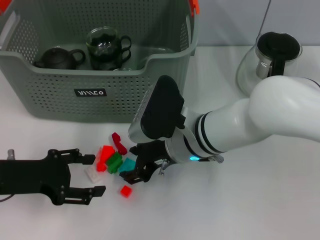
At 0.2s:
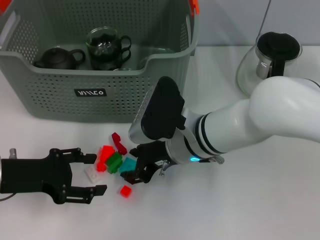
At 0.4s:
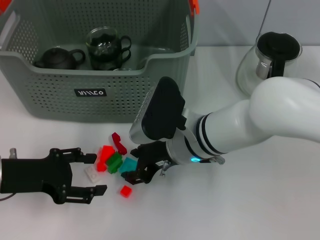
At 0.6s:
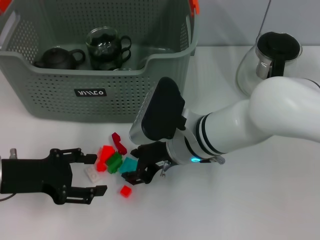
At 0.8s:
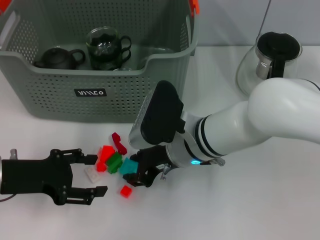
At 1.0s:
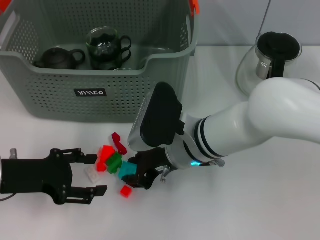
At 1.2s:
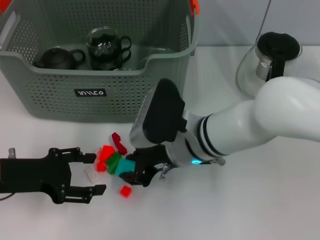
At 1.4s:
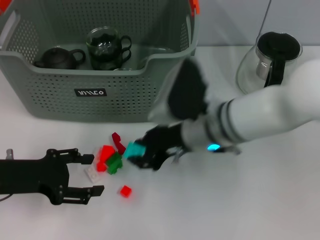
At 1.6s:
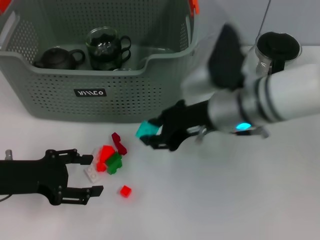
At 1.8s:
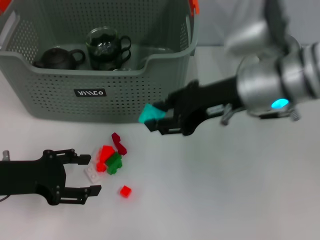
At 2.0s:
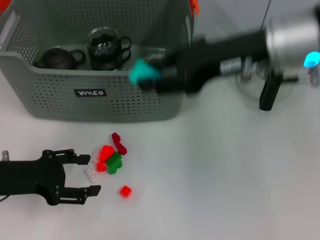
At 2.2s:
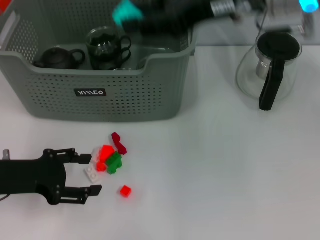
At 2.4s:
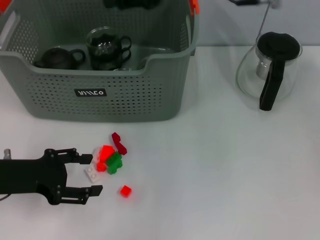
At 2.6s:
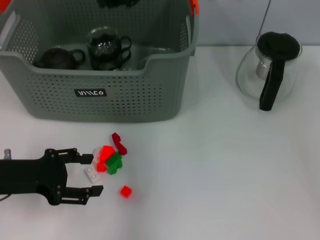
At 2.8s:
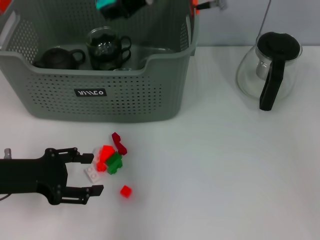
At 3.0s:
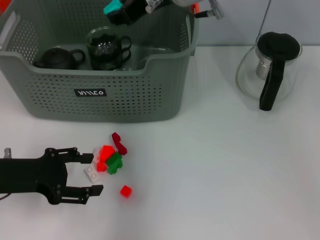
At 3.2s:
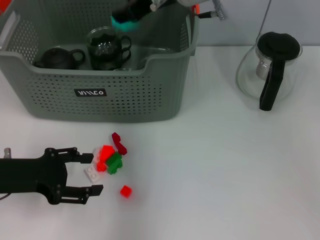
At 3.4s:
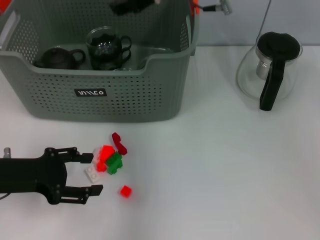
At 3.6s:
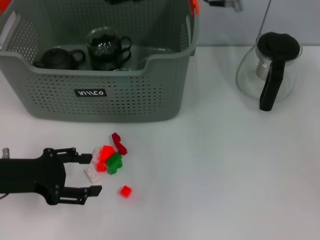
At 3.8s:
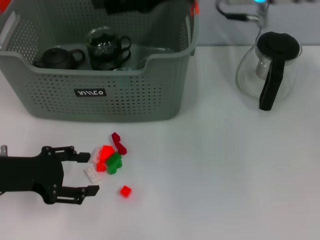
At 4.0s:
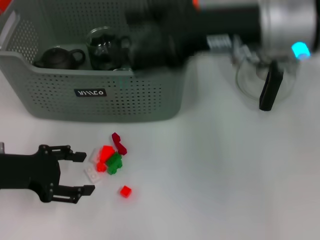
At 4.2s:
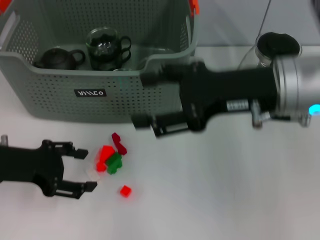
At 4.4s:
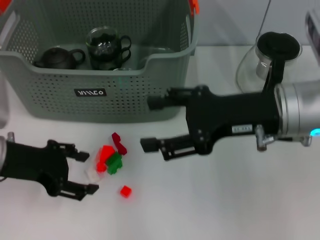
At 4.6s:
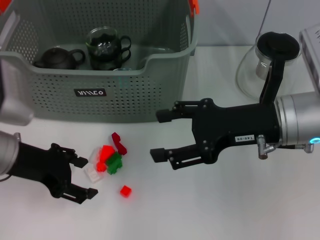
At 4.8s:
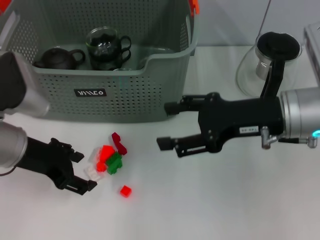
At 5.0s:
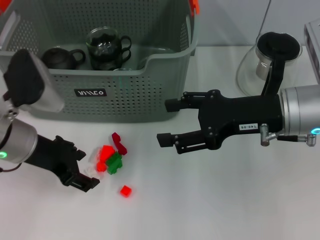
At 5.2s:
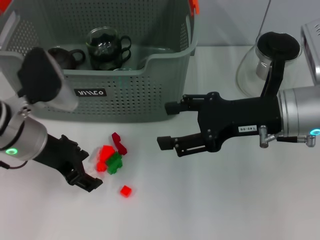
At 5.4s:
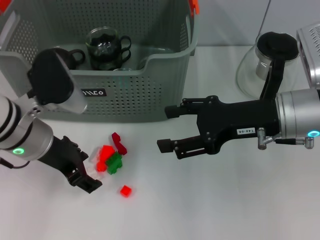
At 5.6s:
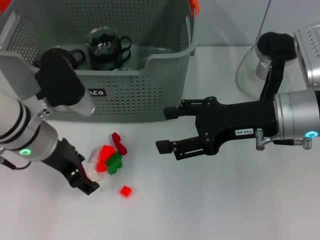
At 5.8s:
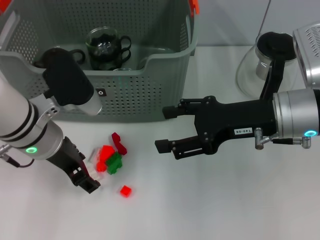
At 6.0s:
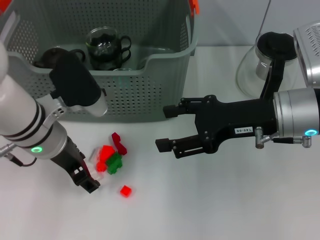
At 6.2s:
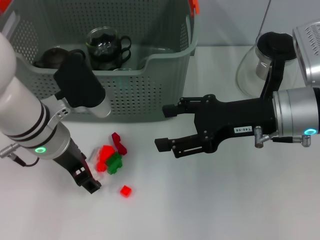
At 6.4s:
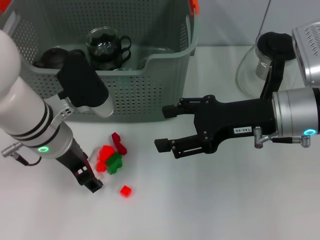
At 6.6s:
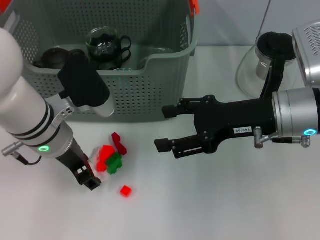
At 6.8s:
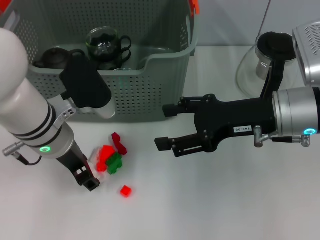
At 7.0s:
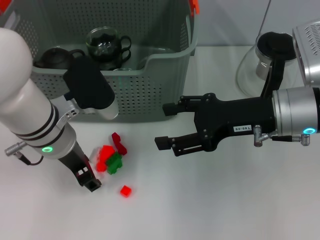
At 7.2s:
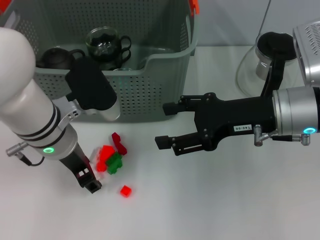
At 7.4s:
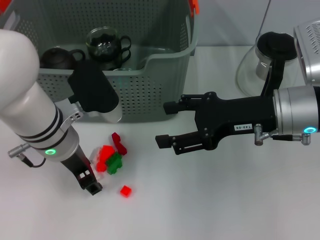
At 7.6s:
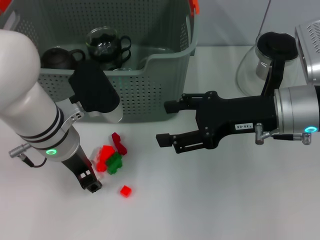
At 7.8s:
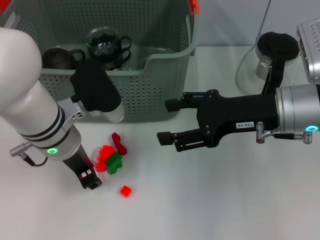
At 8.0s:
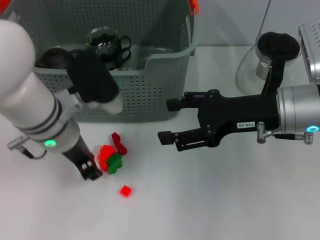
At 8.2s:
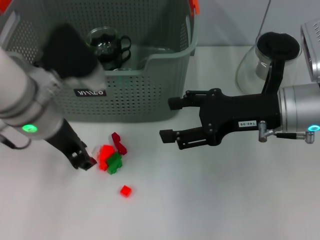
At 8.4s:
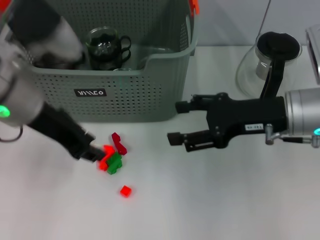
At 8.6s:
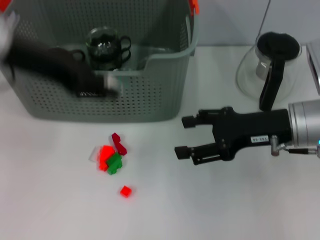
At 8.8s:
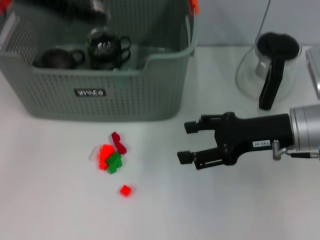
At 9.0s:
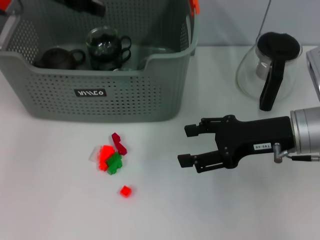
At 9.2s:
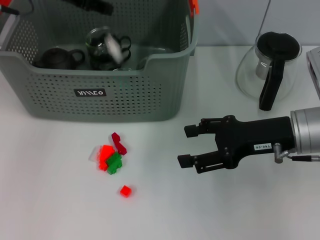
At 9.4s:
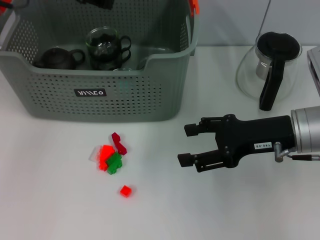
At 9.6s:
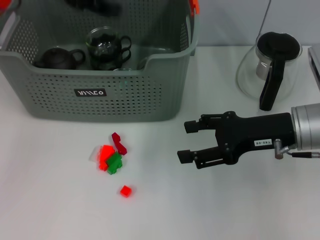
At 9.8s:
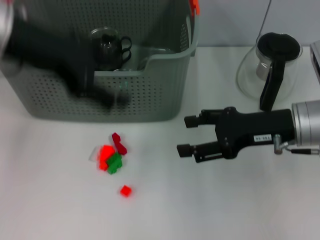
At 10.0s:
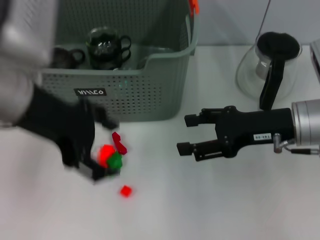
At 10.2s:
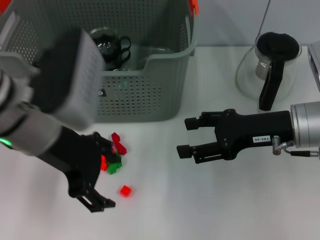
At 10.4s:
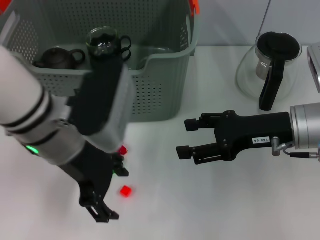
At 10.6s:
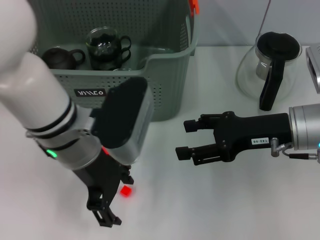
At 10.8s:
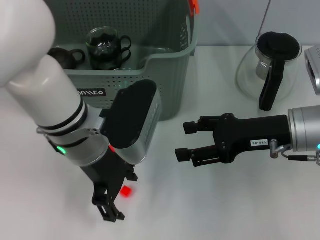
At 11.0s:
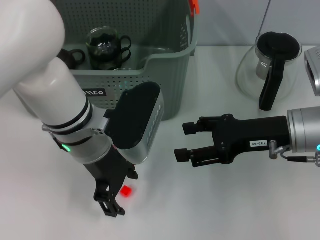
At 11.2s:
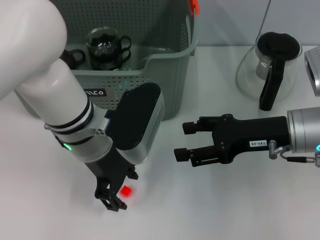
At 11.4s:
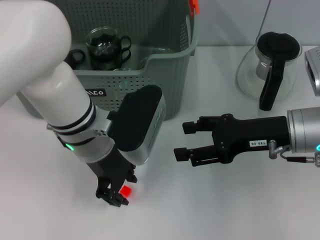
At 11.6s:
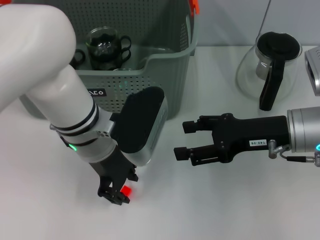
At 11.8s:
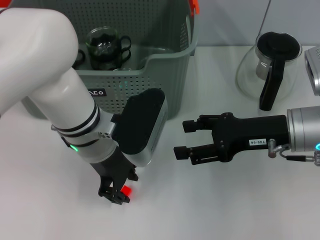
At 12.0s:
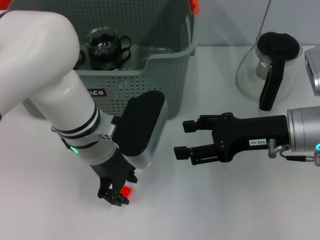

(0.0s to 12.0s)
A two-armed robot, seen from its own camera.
Task of the whole recording: pick up the teacup on the table and place it into the storage bin, pick up the block on the table and place it into the storage bin.
Step, 1.2s - 3.4s: Place the light blue block in the storage box with right gripper.
Step, 3.6s - 7.6s: Grasp the white block with left gripper.
Step, 7.8s - 9.4s: Place the white block in the storage box with left gripper.
0.0s - 1.6s: The right gripper moves upward and to the right, roughly 10 cm, and closes.
1.6s - 3.0s: The right gripper is displaced forward, upward and to the left by approximately 15 cm.
3.0s - 4.4s: The left gripper shifts by roughly 5 cm. The right gripper travels backward, to the right and downward by approximately 20 cm, and opens its fingers.
4.4s - 6.0s: The left gripper is displaced to the right by roughly 10 cm.
6.0s - 7.6s: The grippers stay close to where they were, moving slightly.
7.6s - 9.0s: The left gripper goes roughly 20 cm upward, forward and to the left.
9.0s - 10.4s: The left gripper shifts some 20 cm backward, downward and to the right, and opens up.
10.4s - 12.0s: The left gripper is displaced downward by approximately 5 cm, and closes its fingers.

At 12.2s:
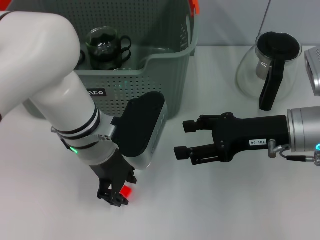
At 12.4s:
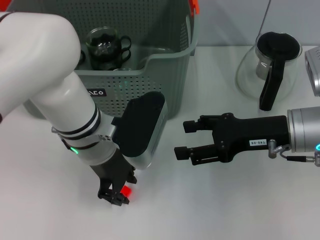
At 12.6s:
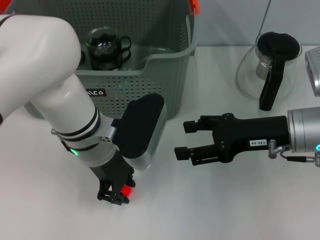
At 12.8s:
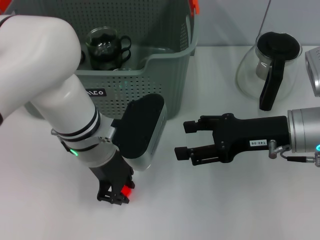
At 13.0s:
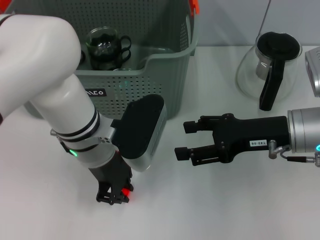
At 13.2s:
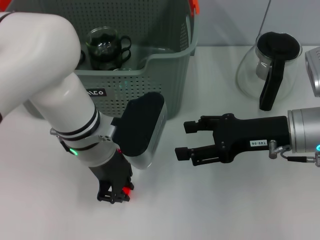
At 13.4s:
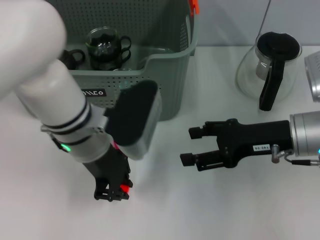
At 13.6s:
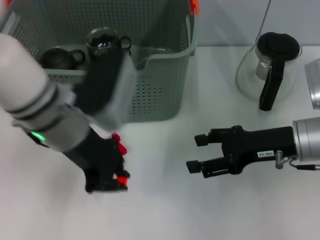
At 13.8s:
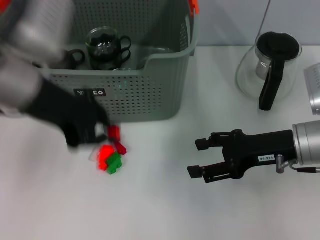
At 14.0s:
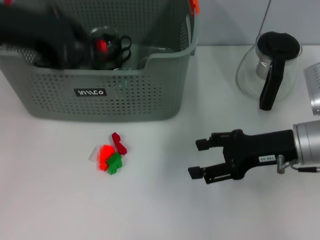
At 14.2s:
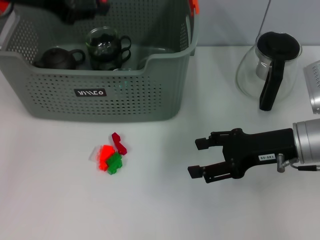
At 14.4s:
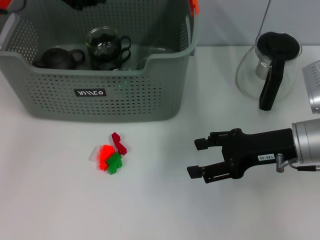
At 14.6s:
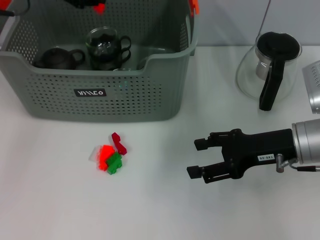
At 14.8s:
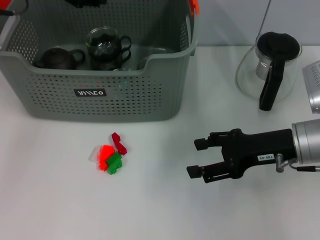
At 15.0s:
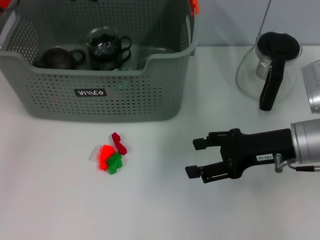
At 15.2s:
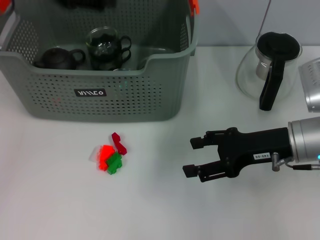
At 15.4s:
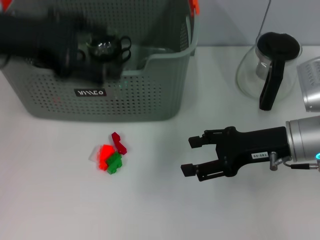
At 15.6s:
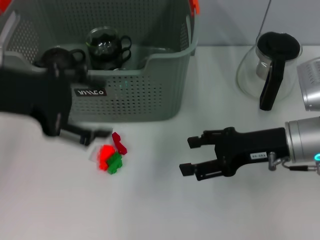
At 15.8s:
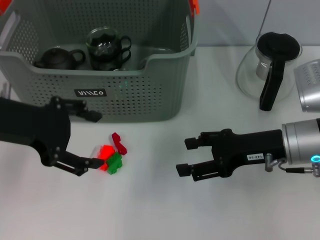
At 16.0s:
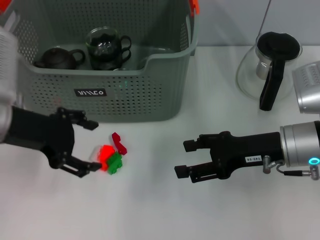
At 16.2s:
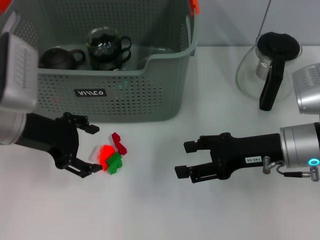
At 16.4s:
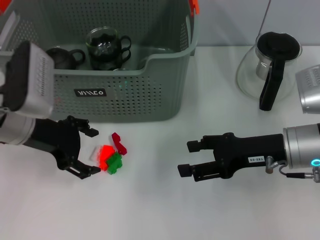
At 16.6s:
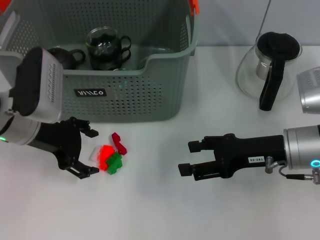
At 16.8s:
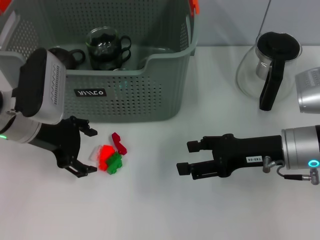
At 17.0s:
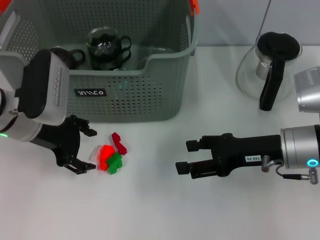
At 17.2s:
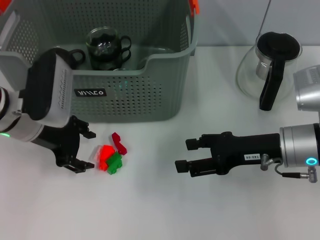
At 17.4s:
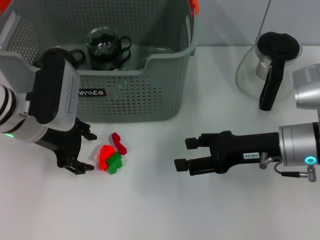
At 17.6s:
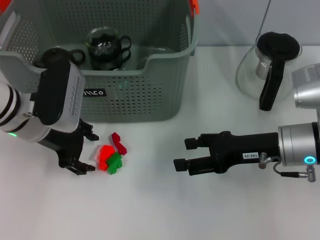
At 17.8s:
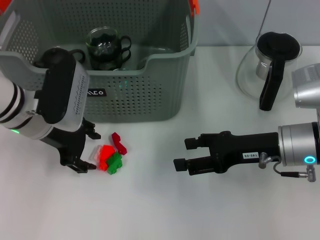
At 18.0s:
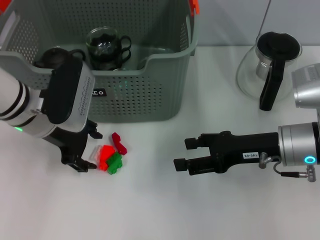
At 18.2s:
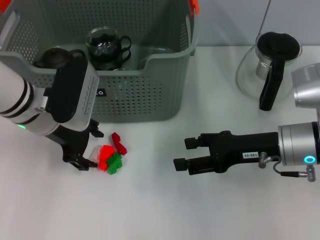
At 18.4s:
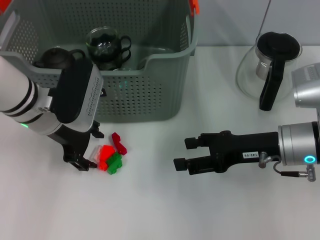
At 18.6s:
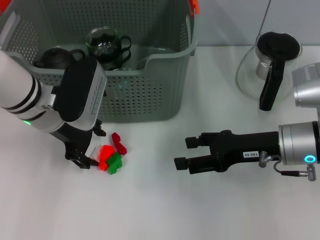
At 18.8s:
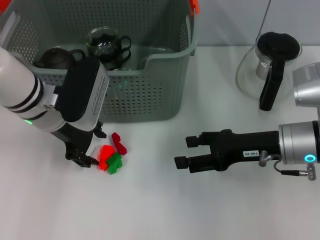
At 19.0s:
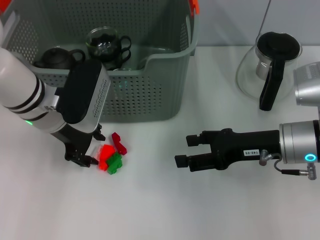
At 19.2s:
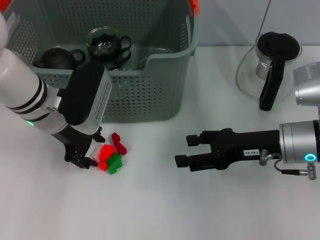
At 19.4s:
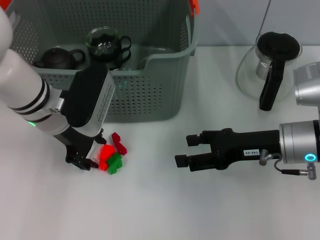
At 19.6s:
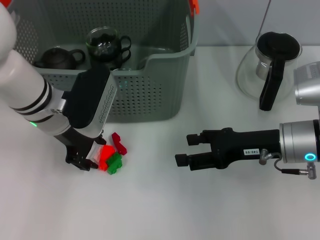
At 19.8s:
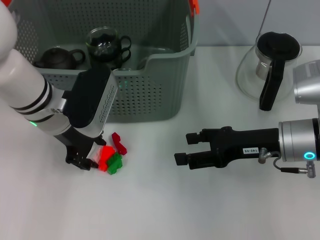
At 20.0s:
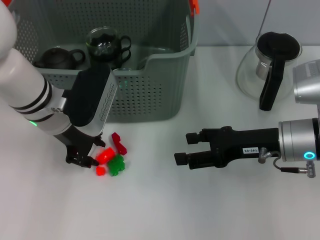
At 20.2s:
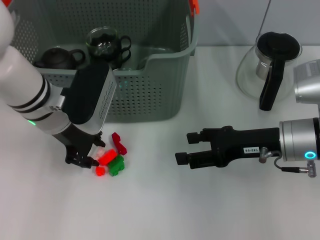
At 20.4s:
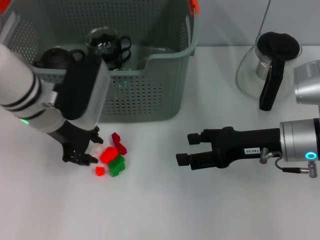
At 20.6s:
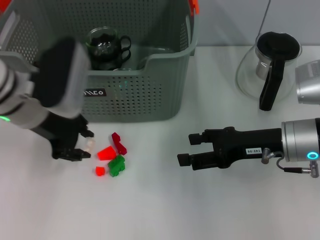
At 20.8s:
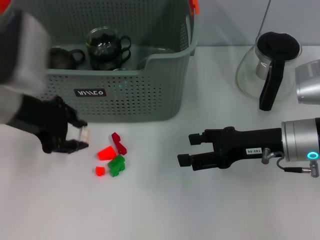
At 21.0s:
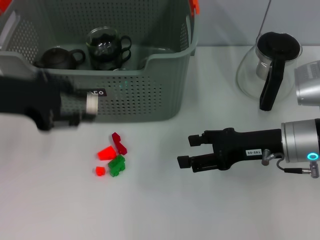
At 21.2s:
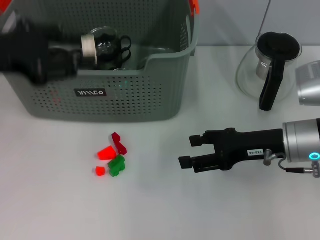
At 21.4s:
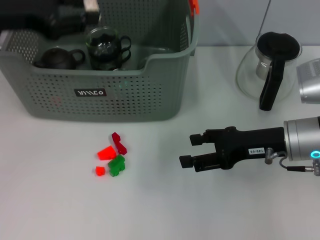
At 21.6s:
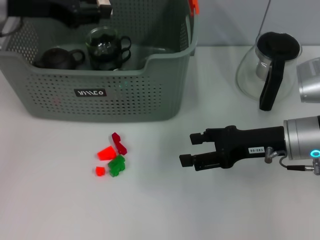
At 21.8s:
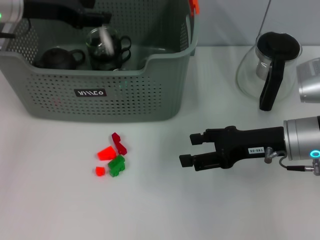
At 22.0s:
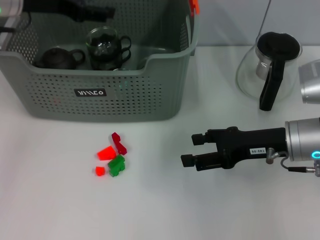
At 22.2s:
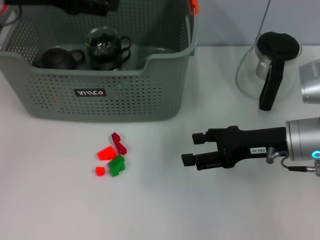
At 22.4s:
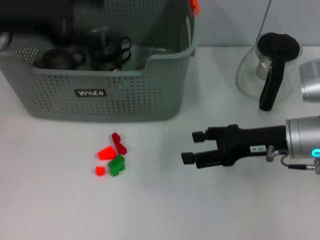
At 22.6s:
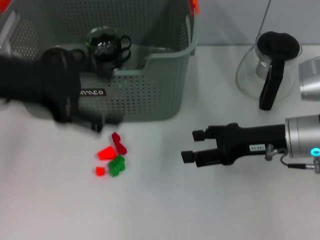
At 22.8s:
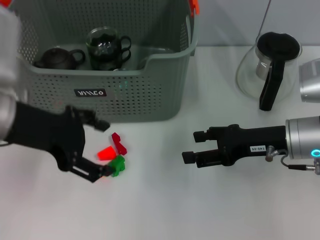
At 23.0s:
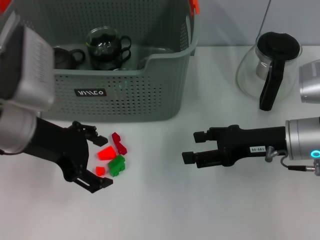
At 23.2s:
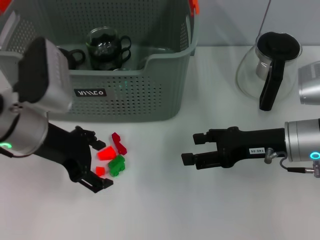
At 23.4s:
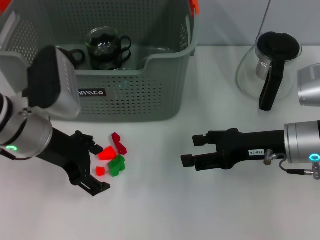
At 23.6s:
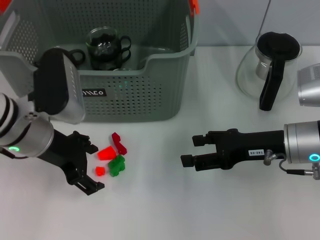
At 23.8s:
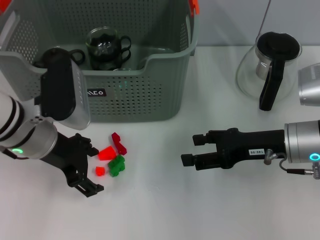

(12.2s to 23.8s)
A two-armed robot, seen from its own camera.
Task of the whole recording: pick up the teacup on the table and place it into the storage bin, pick up the block on the table and place it into the storage bin.
Step, 13.2s - 14.8s: Place the orange block in the storage box with left gripper.
Step, 15.2s - 20.2s: Grasp the white block with left gripper.
Step, 20.4s - 22.0s: Place the white block in the storage box with left gripper.
12.2s - 13.6s: The left gripper travels upward by approximately 5 cm.
13.6s - 15.0s: The left gripper shifts about 20 cm forward, to the left and upward.
15.0s - 16.6s: The left gripper moves downward and backward, some 15 cm, and opens up.
16.6s - 18.0s: The grippers stay close to where they were, moving slightly.
18.0s - 19.4s: The grippers make only small movements.
19.4s - 21.0s: The left gripper shifts some 15 cm to the left, upward and backward.
21.0s - 22.4s: The left gripper moves upward, about 5 cm, travels forward and back again, roughly 10 cm each way, and opens up.
22.4s - 23.8s: The left gripper heads downward and to the right, covering some 15 cm.
